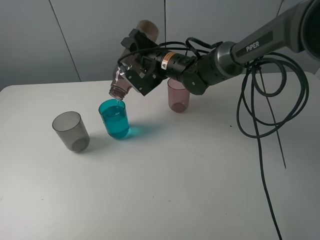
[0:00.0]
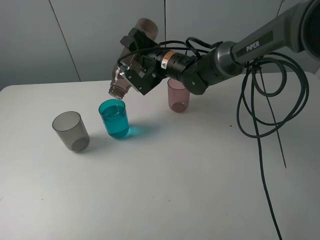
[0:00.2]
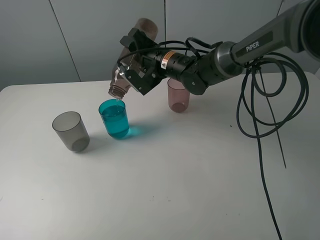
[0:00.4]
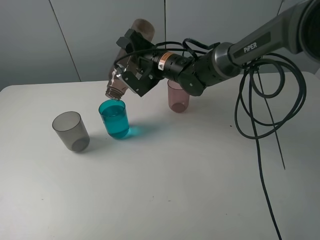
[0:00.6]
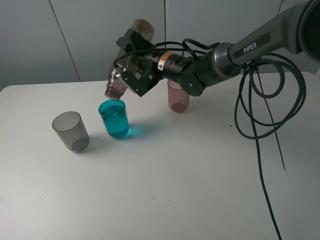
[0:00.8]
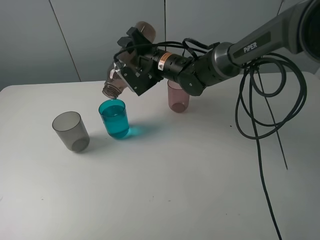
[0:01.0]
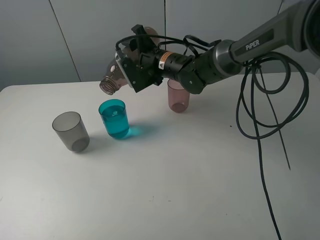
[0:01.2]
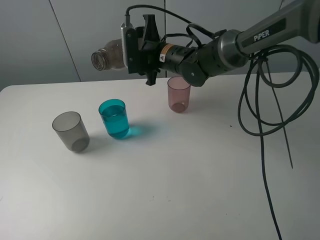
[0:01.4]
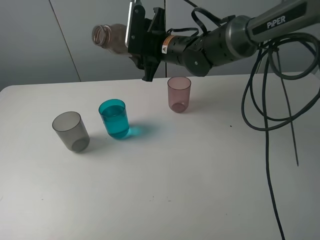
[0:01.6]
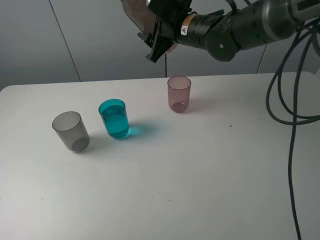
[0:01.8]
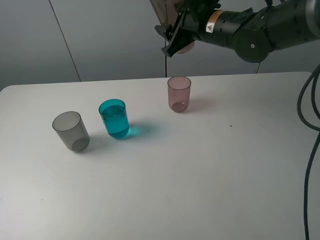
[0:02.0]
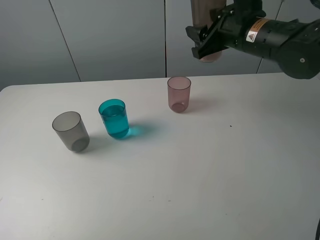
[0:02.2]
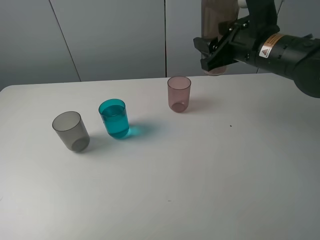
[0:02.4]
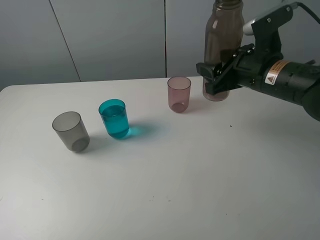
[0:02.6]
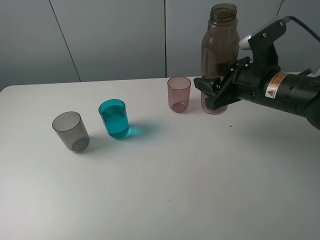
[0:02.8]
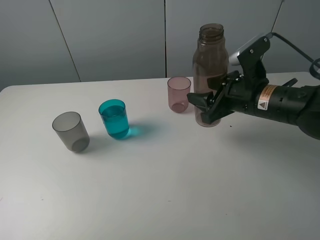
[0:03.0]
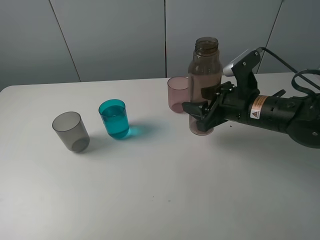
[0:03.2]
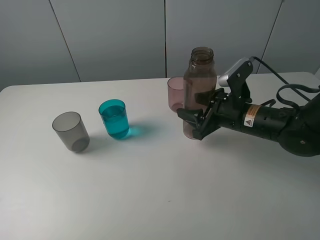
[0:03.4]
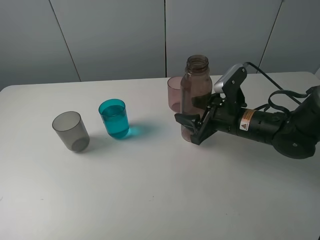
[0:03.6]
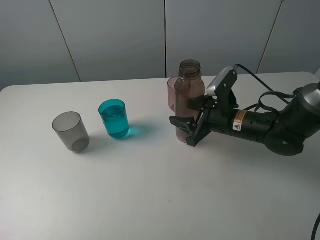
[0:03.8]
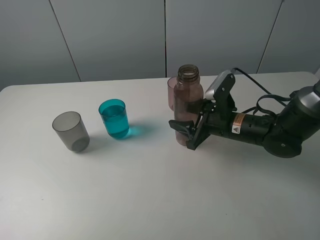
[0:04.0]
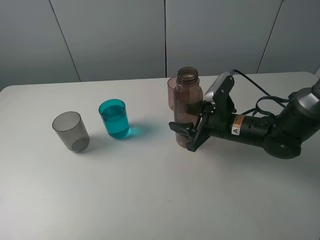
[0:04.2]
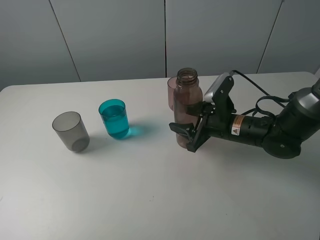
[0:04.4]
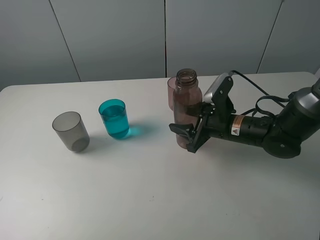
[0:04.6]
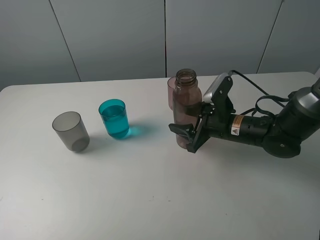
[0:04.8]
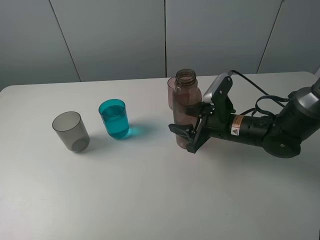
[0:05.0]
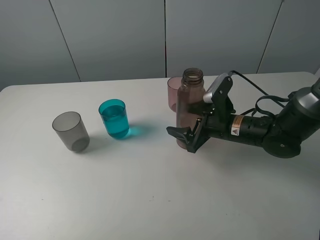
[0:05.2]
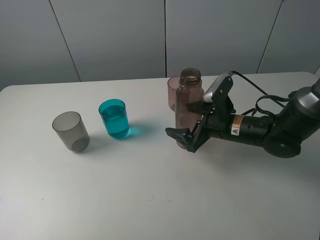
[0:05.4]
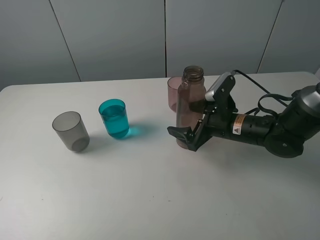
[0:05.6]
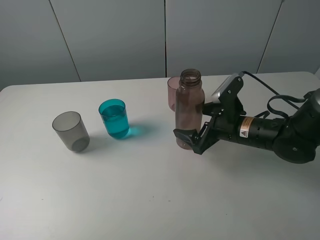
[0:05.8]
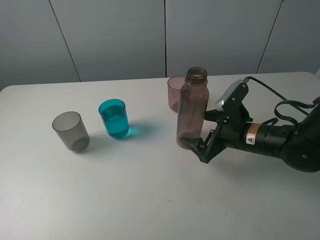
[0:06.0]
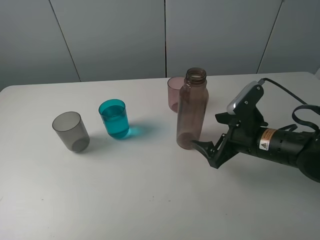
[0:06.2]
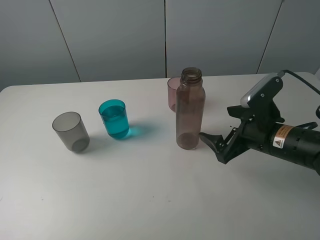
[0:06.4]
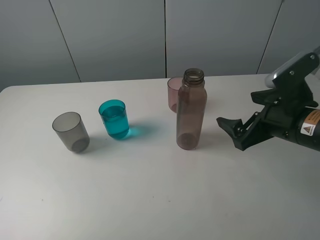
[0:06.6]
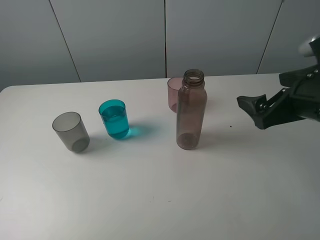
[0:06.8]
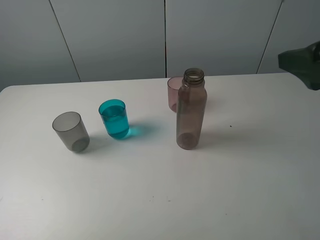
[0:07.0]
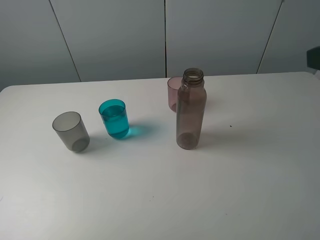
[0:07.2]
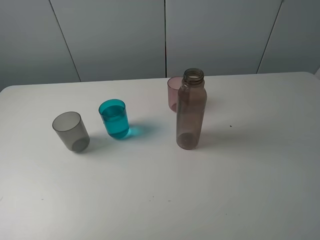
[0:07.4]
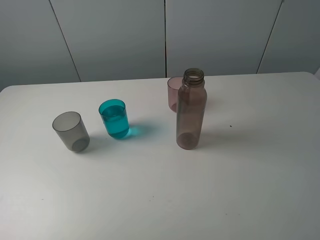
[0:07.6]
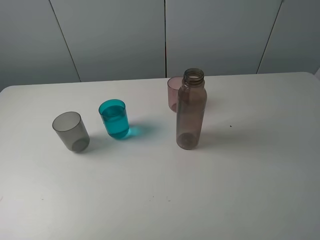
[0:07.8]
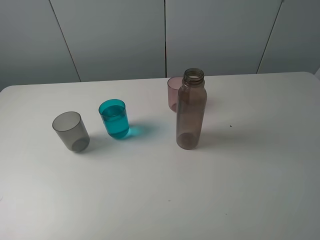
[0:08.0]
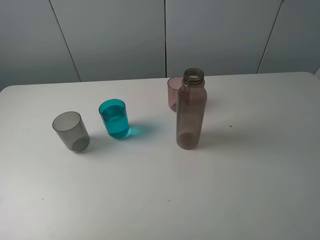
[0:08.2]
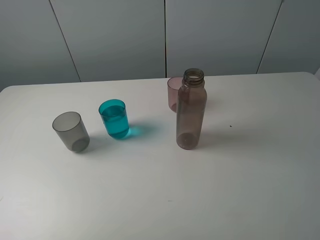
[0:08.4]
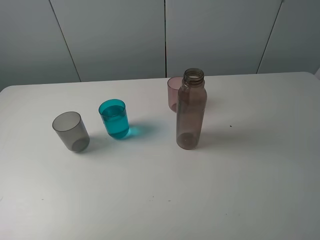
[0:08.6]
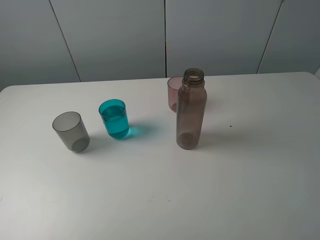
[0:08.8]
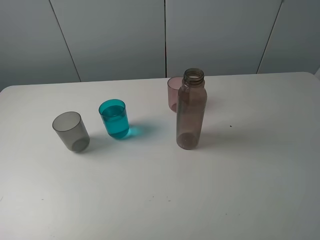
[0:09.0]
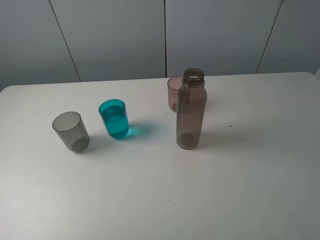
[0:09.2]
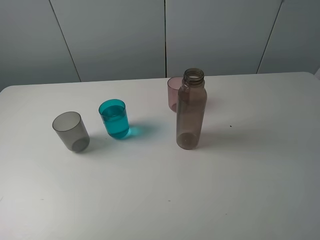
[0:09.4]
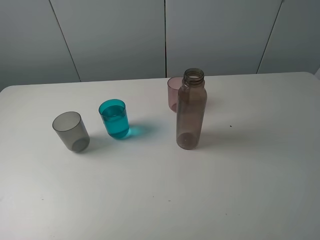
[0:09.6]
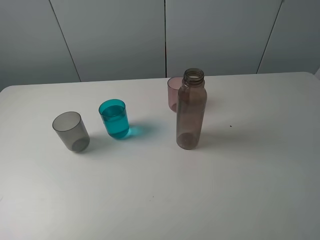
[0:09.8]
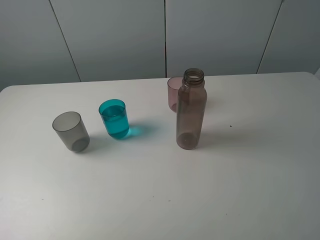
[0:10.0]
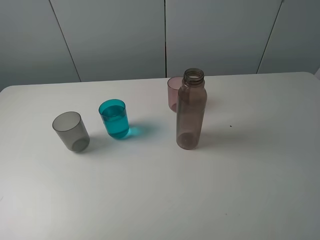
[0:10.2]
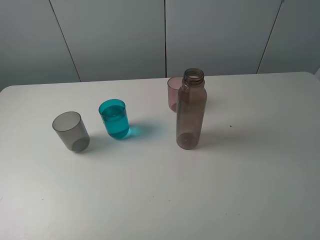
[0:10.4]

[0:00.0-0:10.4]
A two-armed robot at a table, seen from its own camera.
Task of the whole recording: pick up the bottle filled with water and pour water into the middle cup of the three cups.
Step, 0:00.0 to 0:06.0: Place the brown bottle with the right gripper.
0:01.4 to 0:03.0: The right gripper travels to the right and backward by approximately 20 cm.
0:03.0 to 0:04.4: The right gripper is displaced downward by about 10 cm.
0:04.4 to 0:06.0: The right gripper opens up.
0:06.0 to 0:07.4: The right gripper shifts about 30 cm upward and backward.
0:09.0 to 0:10.4: Neither gripper changes place.
